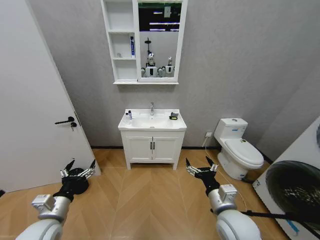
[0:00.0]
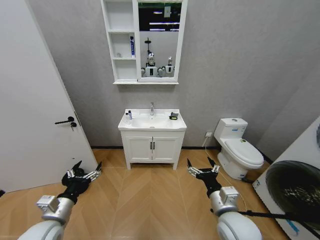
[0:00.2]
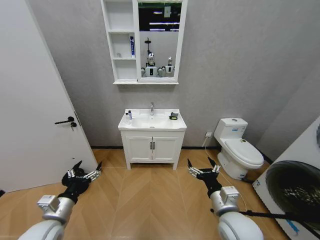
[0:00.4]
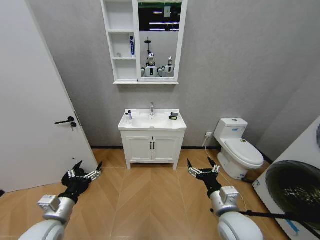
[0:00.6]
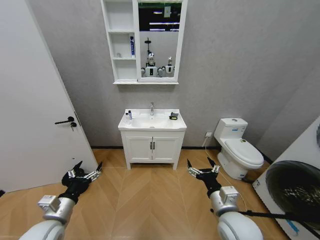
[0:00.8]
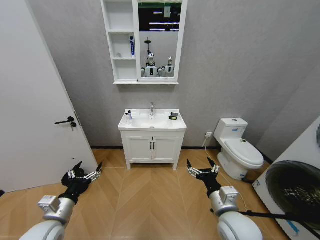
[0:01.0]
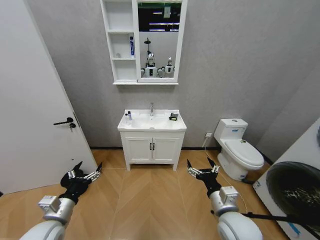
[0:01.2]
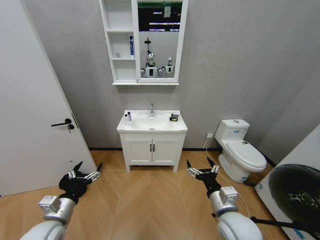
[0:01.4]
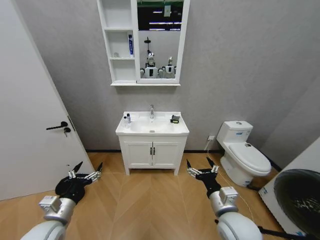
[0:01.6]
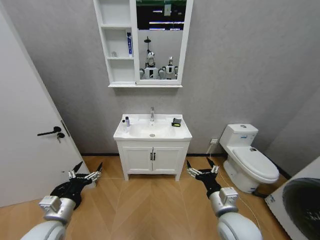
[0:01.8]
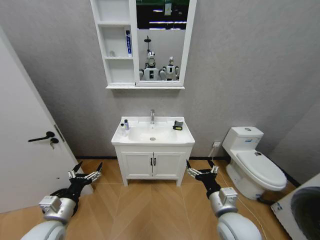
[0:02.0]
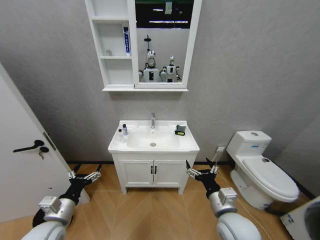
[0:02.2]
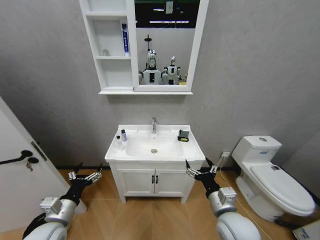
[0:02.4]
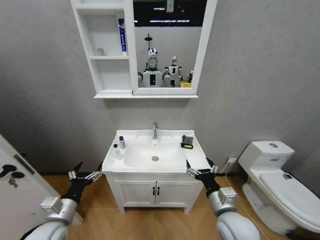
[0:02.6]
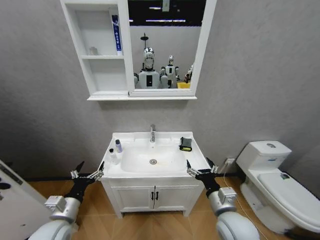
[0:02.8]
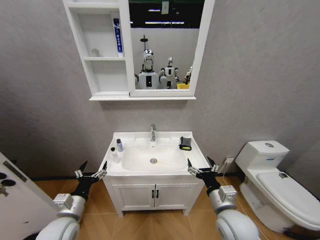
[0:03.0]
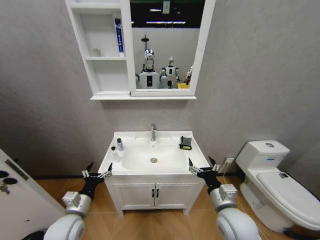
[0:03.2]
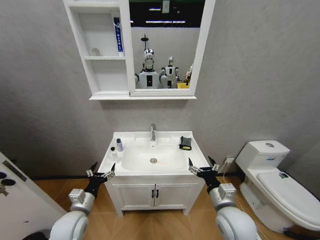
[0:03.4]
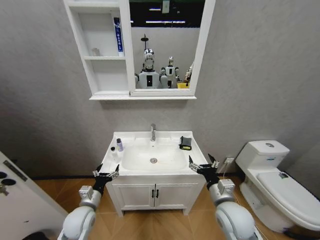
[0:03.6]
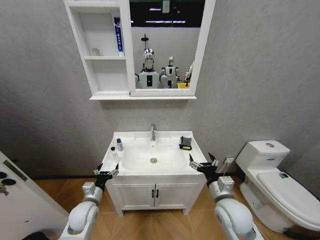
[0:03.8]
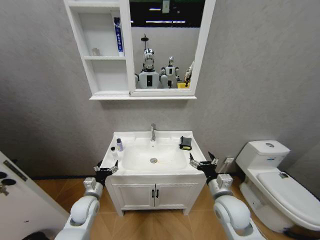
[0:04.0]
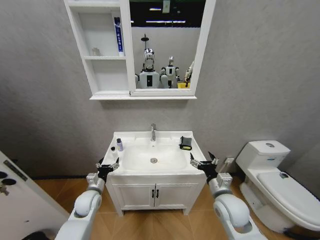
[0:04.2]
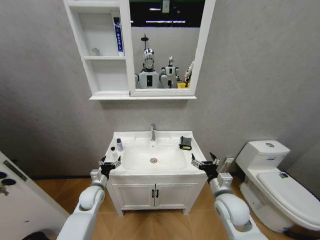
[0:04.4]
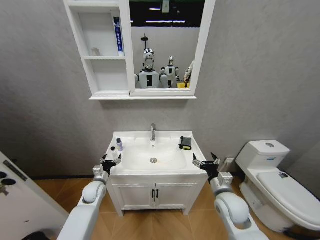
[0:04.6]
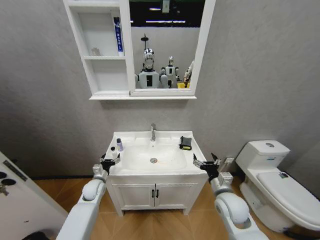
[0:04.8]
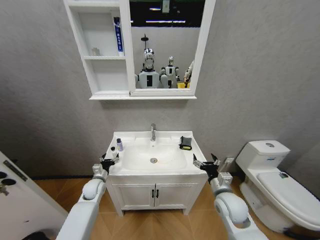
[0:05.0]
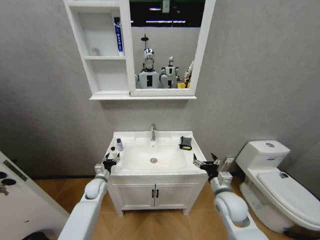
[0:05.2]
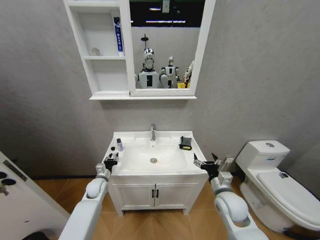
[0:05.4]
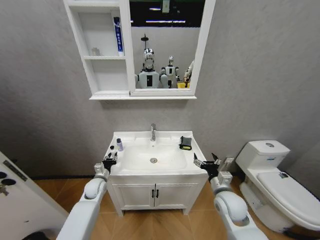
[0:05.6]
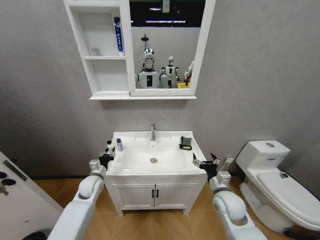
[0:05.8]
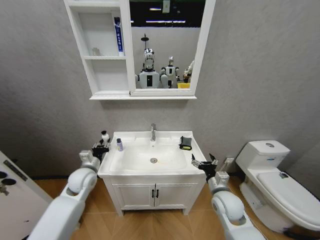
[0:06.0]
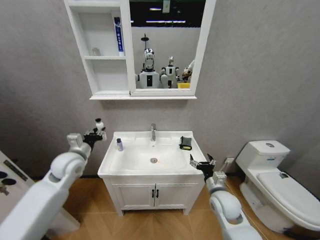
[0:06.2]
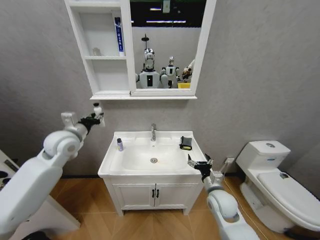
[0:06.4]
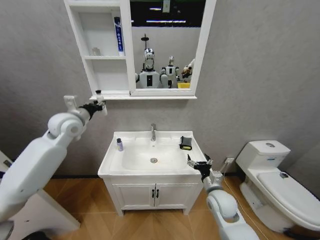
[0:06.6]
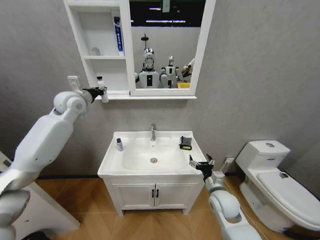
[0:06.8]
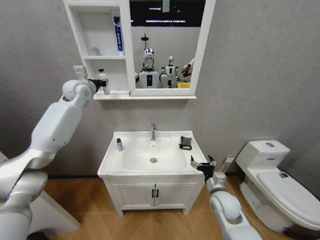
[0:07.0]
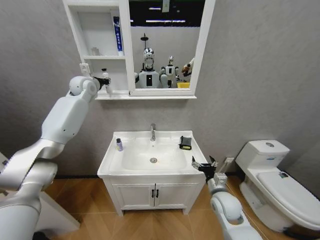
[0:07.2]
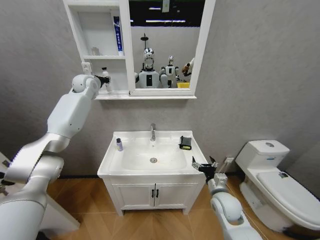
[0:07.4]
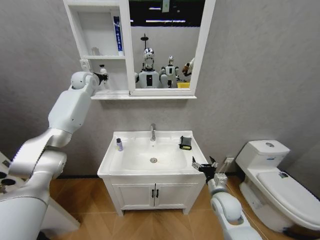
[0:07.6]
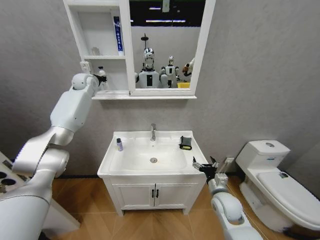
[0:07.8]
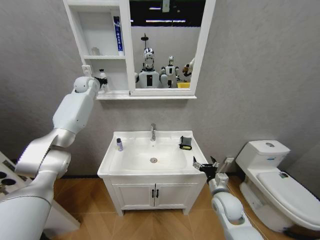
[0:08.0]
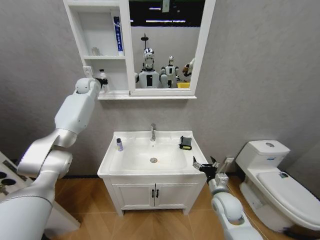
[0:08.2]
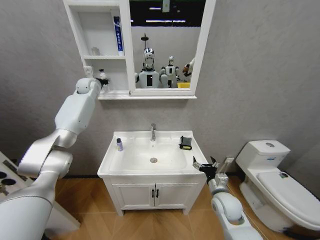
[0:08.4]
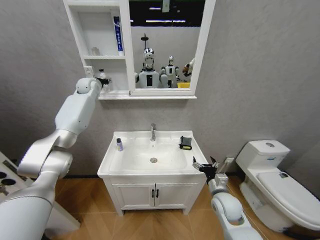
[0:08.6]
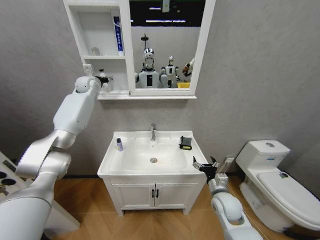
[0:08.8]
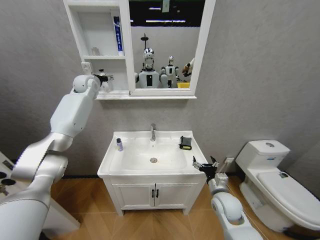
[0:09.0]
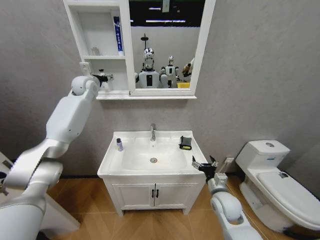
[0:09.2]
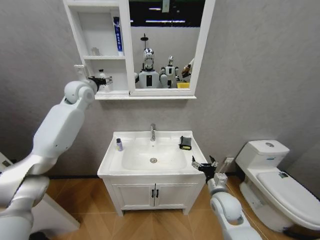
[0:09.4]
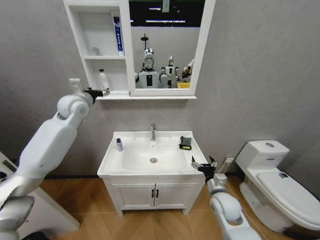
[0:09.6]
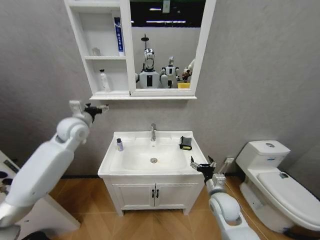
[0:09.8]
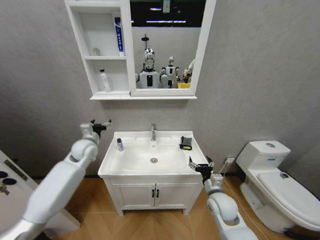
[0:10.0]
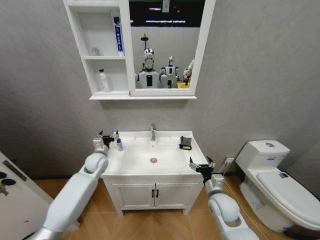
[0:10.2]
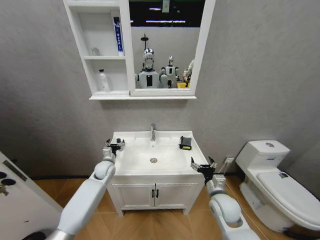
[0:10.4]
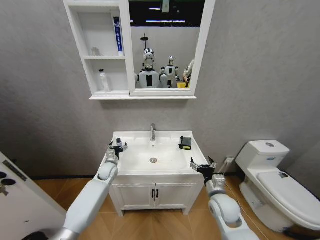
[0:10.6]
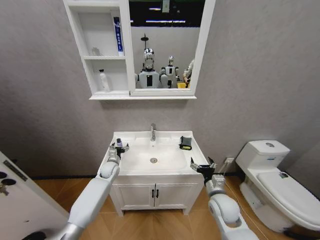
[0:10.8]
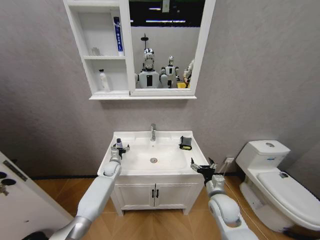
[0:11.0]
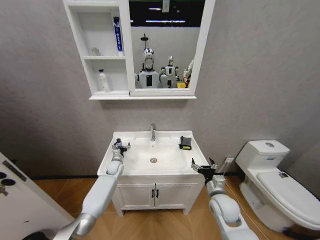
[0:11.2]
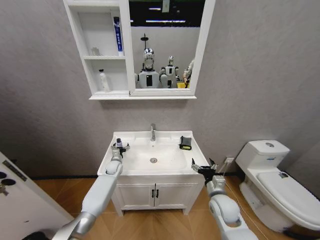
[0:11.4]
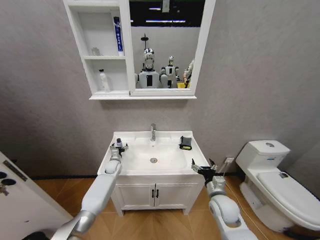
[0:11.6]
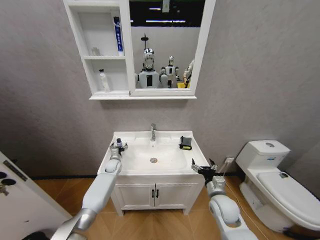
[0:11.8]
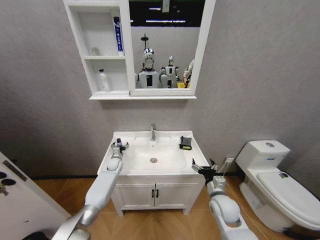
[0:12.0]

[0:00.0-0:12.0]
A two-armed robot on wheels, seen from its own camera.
Task of the whole recording: Move facial cleanser and shampoo from washbasin to cabinet, then wipe washbasin with towel.
0:03.0 to 0:04.4: The left gripper heads forward and downward, covering some 15 cm. The right gripper moves forward, roughly 5 cm.
0:04.4 to 0:06.0: The left gripper moves upward, approximately 10 cm, and closes up.
0:06.0 to 0:07.6: The left gripper moves upward and forward, some 40 cm.
0:07.6 to 0:09.0: The left gripper opens.
0:09.0 to 0:10.4: The left gripper heads downward and backward, covering approximately 40 cm.
0:10.4 to 0:12.0: The left gripper travels forward and downward by about 10 cm.

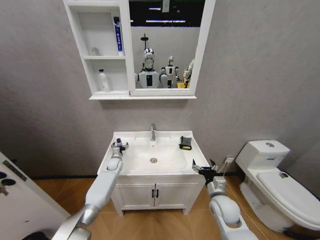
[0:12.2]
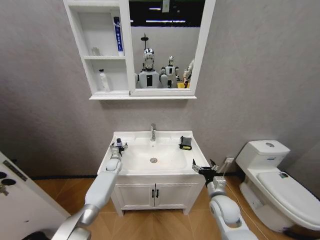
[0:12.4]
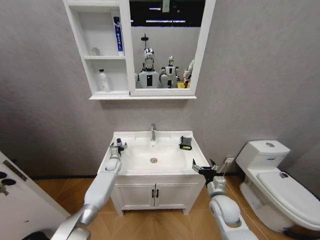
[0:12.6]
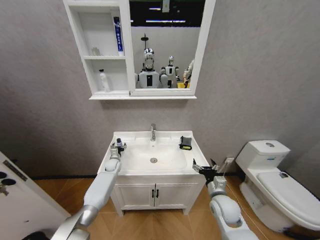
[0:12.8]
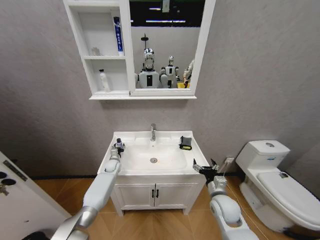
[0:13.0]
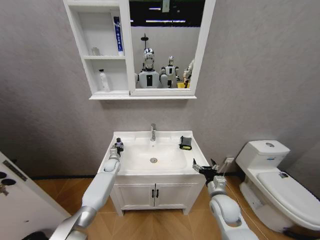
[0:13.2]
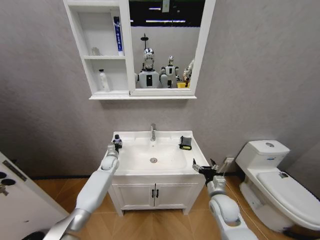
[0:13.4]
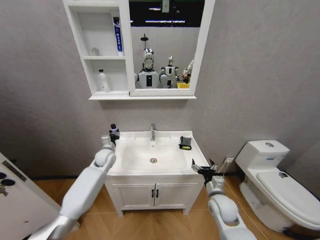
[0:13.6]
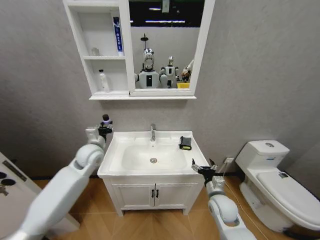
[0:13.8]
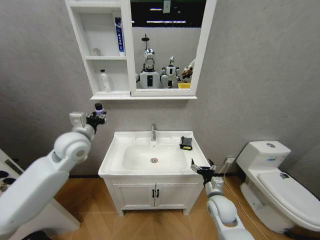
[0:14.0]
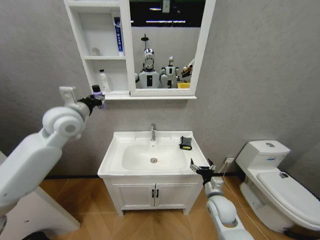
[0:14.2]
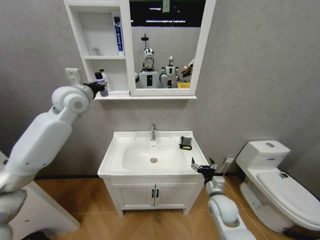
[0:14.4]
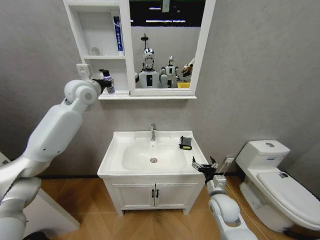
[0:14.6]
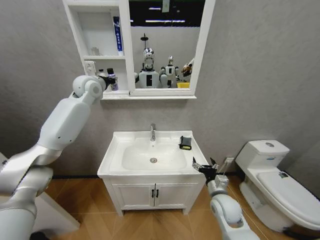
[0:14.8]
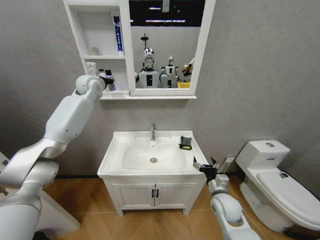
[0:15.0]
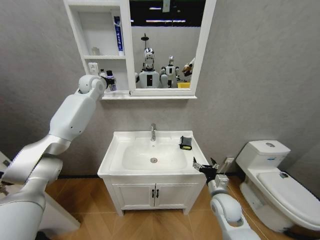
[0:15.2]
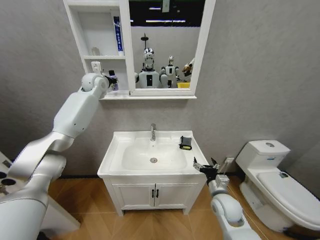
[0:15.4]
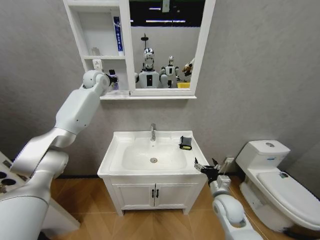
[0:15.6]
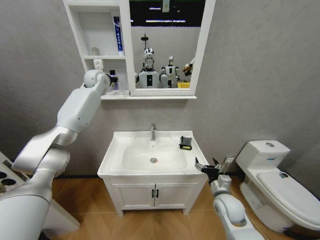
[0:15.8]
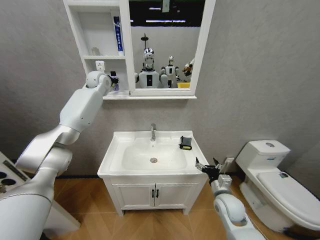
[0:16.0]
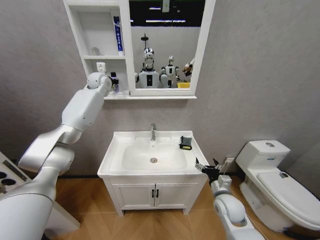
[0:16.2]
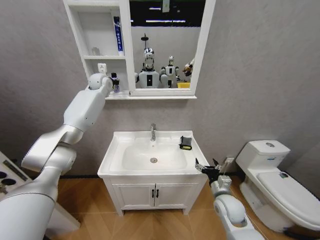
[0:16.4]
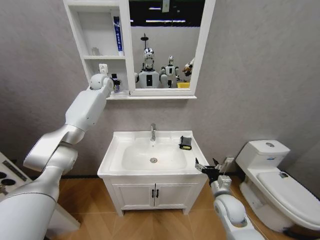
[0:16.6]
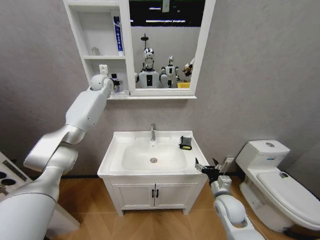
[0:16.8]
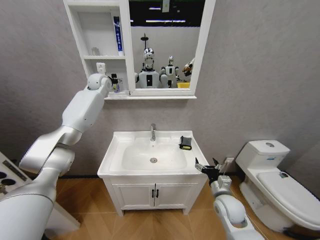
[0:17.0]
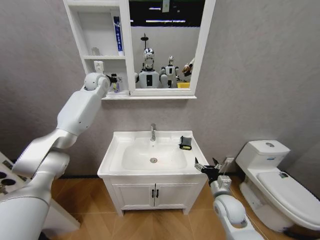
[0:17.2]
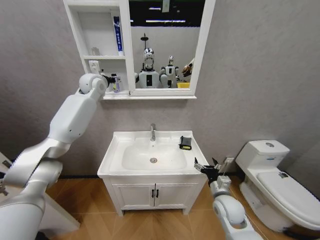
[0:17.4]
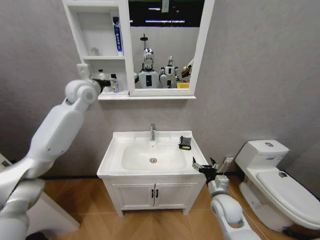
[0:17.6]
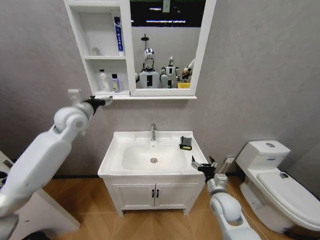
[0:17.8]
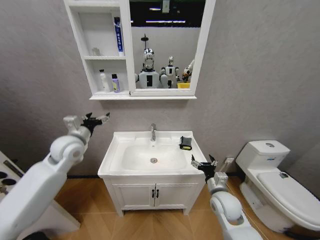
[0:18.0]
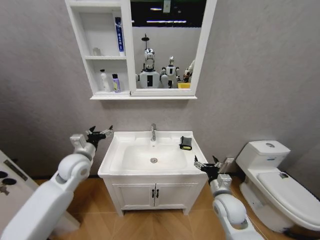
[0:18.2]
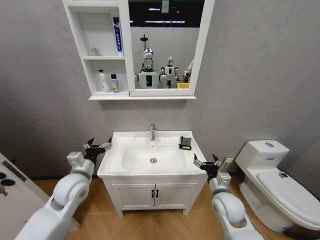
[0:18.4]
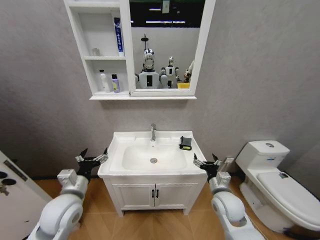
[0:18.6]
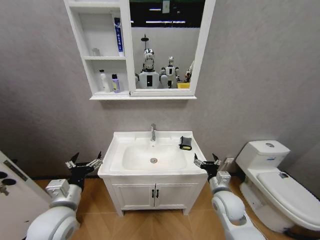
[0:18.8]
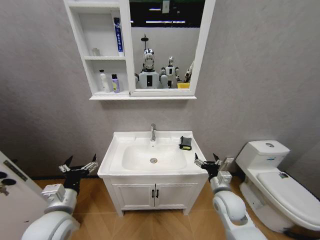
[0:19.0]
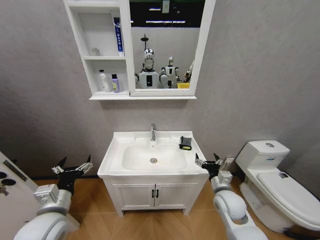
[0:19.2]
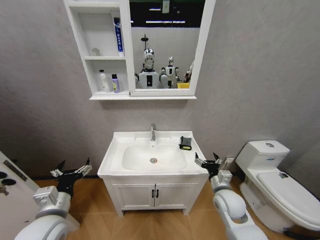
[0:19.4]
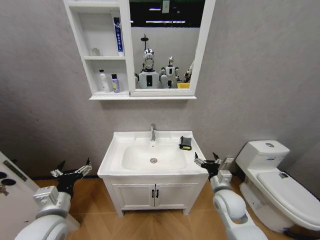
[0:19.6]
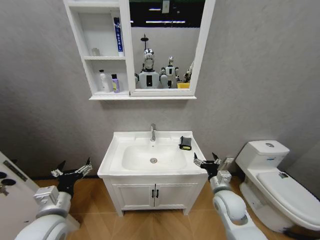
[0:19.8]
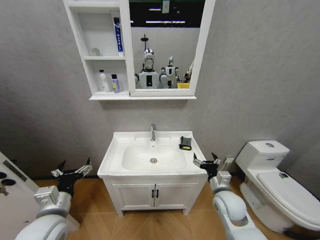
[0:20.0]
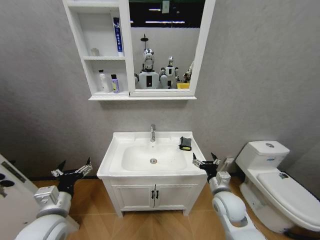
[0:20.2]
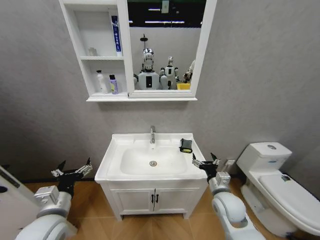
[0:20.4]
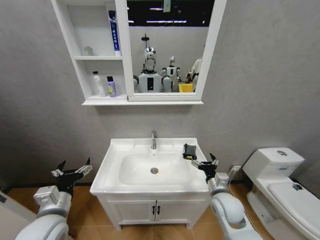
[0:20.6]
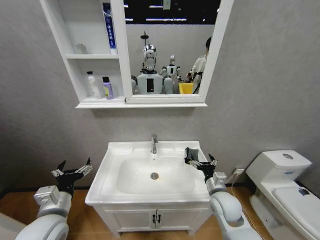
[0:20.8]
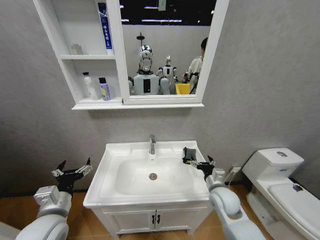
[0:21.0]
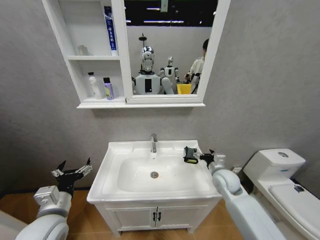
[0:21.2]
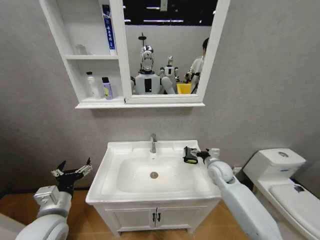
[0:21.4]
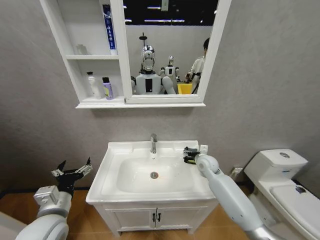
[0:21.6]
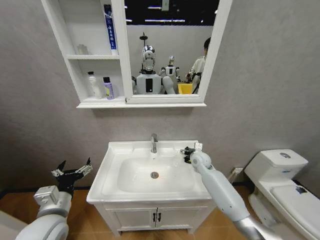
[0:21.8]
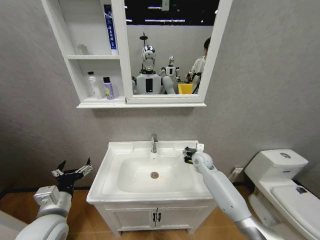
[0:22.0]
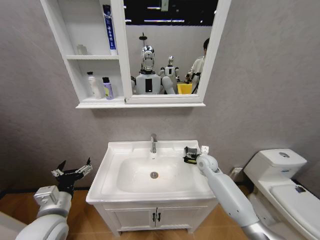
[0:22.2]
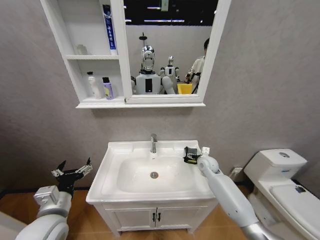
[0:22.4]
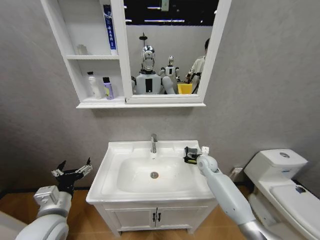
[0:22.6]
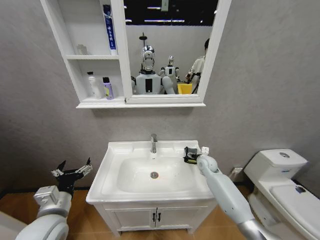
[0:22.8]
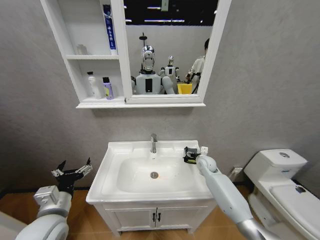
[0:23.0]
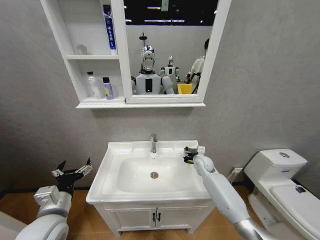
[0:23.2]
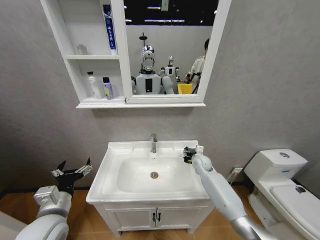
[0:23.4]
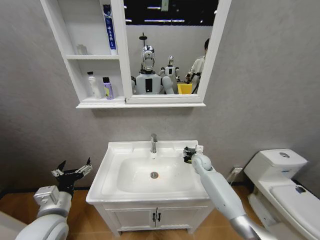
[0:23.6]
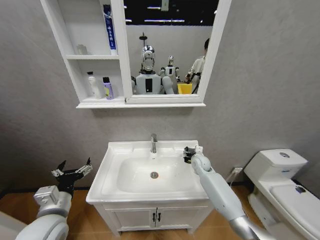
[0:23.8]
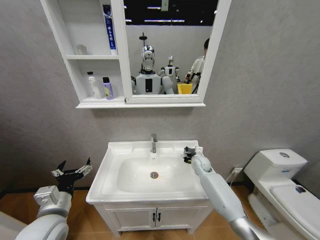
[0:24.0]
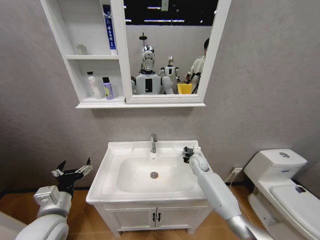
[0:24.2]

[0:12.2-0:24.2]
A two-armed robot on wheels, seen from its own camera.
Task of the whole recording: Move facial cleanser and shampoo from washbasin to cabinet, then wipe washbasin with towel.
0:12.2 to 0:13.8: The left gripper goes roughly 25 cm upward and backward, and closes.
0:13.8 to 0:15.2: The left gripper travels upward and forward by some 30 cm.
0:15.2 to 0:16.6: The left gripper is displaced forward by approximately 5 cm.
0:16.6 to 0:18.2: The left gripper moves backward and downward, some 40 cm, and opens up.
0:18.2 to 0:19.8: The left gripper heads backward, covering some 15 cm.
0:19.8 to 0:21.2: The right gripper goes some 10 cm forward.
0:21.2 to 0:22.6: The right gripper travels forward by approximately 10 cm.
0:22.6 to 0:24.2: The grippers stay close to where they were, moving slightly.
